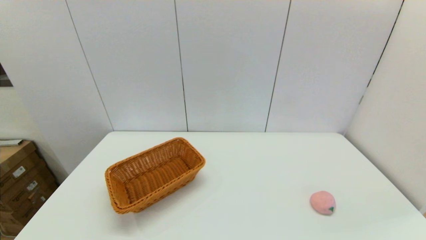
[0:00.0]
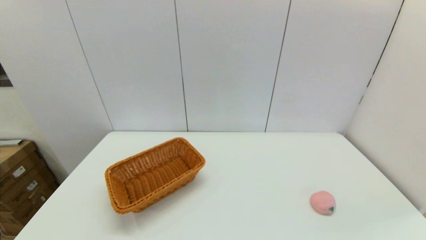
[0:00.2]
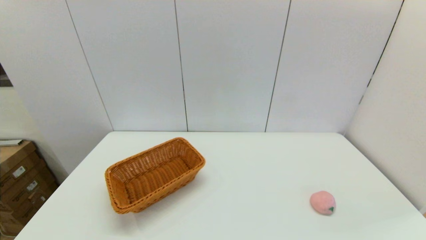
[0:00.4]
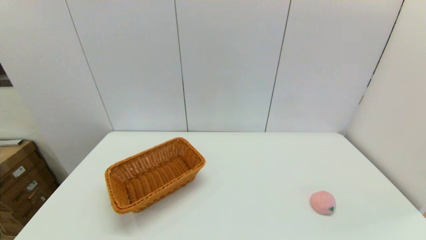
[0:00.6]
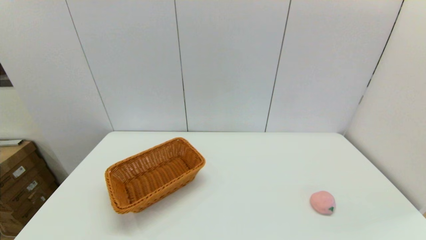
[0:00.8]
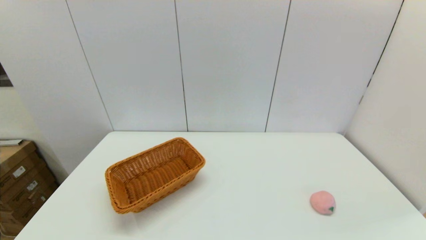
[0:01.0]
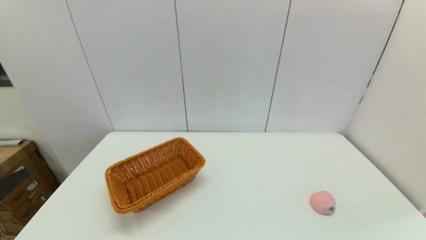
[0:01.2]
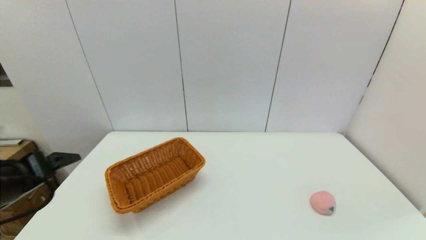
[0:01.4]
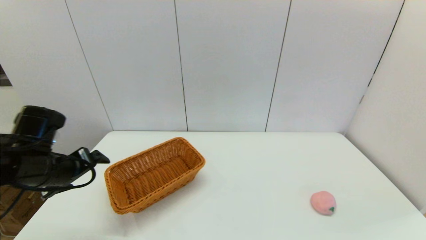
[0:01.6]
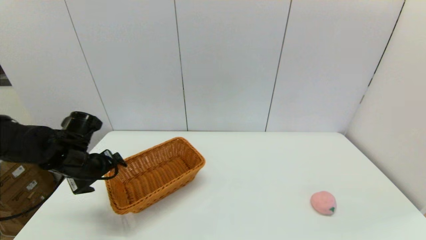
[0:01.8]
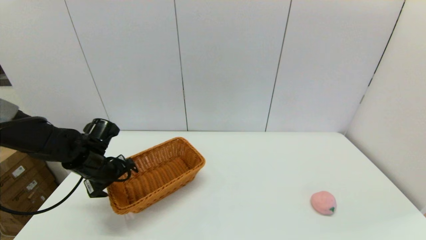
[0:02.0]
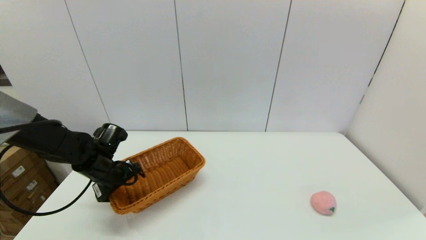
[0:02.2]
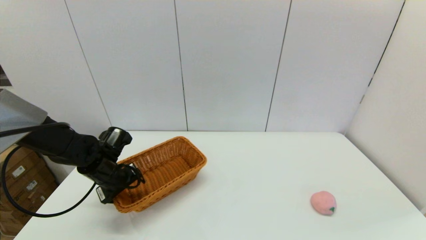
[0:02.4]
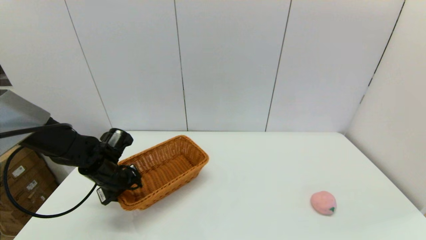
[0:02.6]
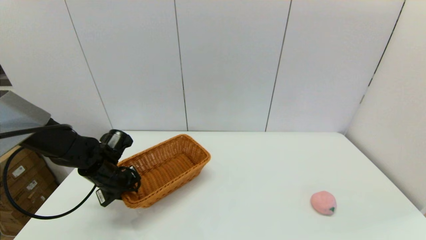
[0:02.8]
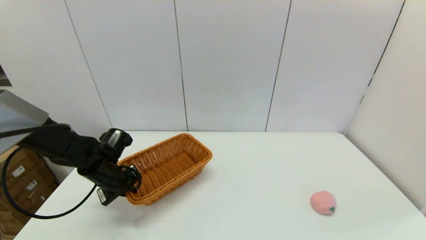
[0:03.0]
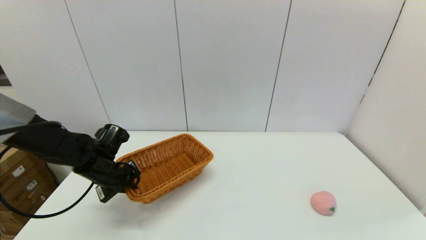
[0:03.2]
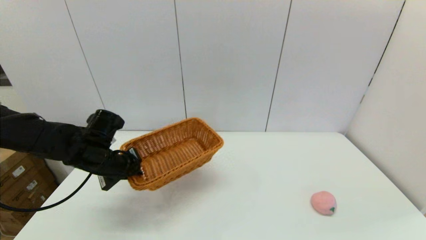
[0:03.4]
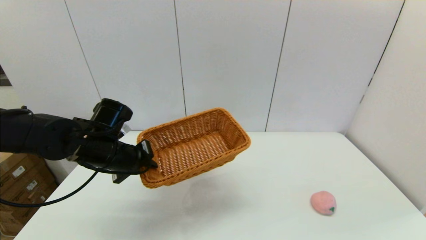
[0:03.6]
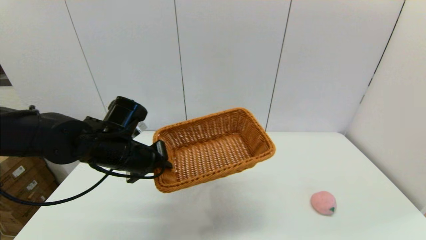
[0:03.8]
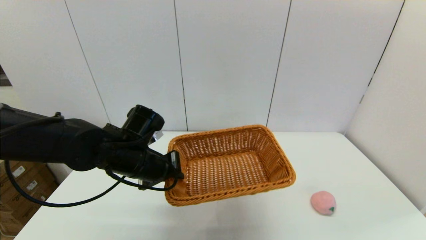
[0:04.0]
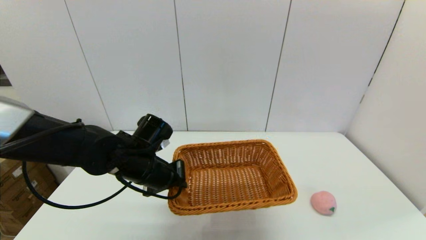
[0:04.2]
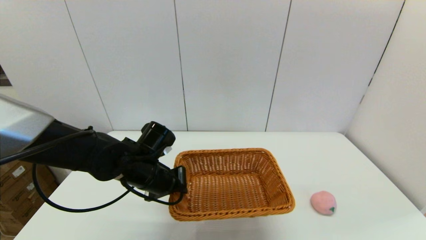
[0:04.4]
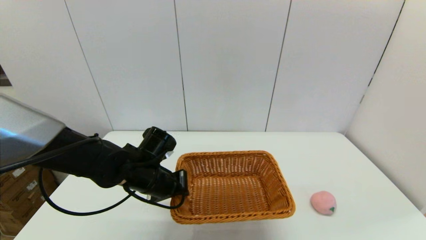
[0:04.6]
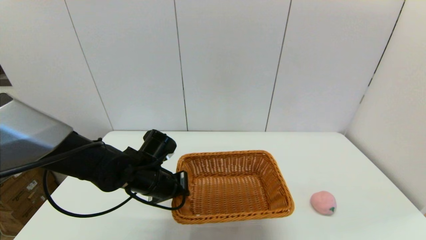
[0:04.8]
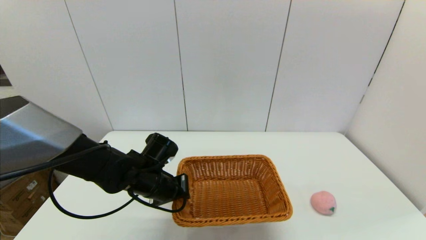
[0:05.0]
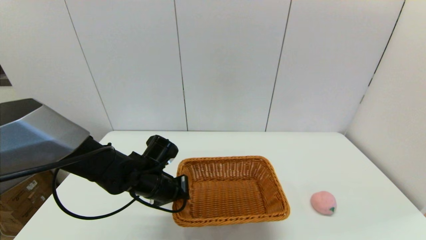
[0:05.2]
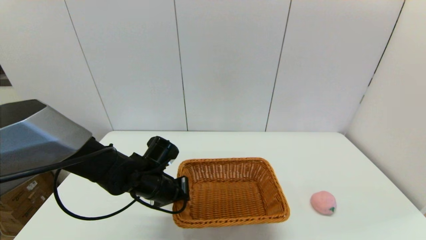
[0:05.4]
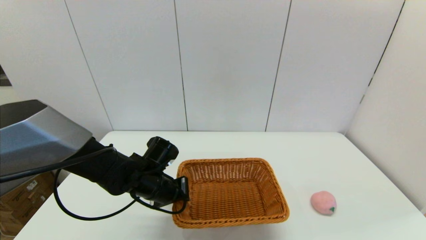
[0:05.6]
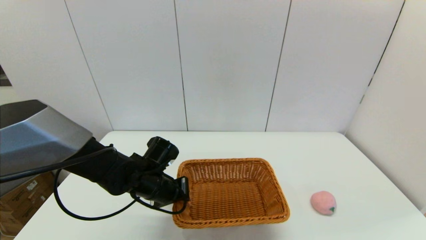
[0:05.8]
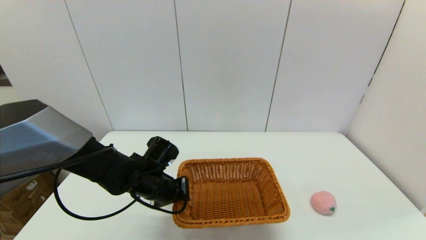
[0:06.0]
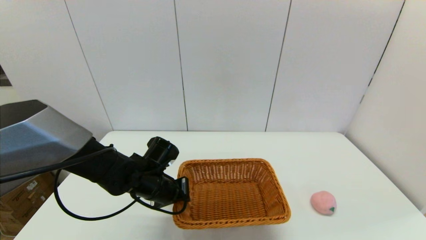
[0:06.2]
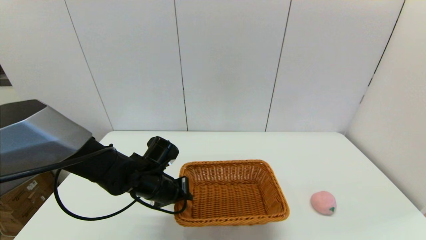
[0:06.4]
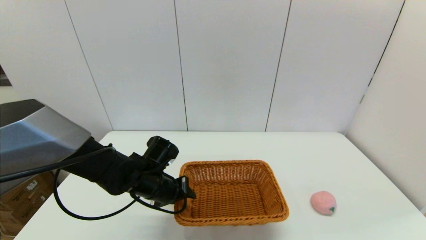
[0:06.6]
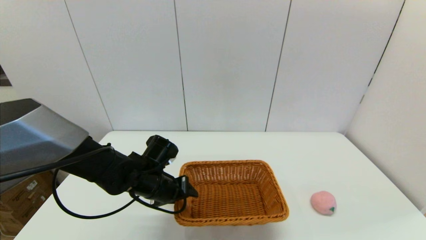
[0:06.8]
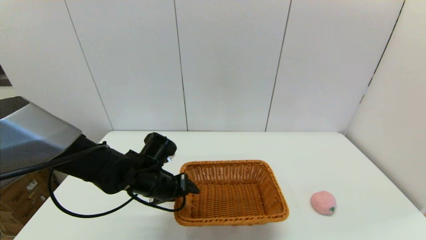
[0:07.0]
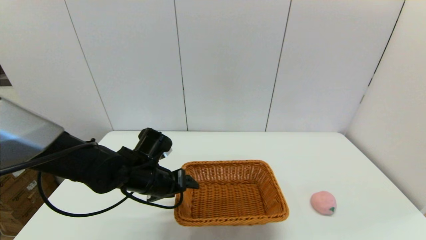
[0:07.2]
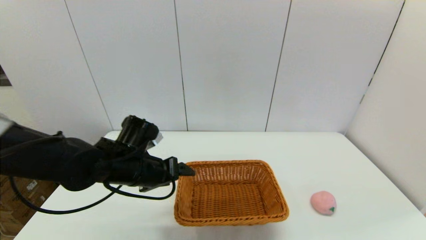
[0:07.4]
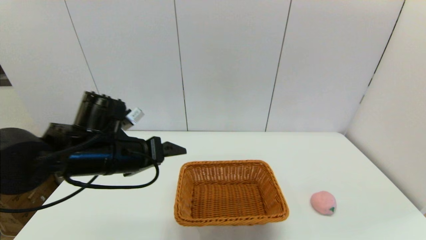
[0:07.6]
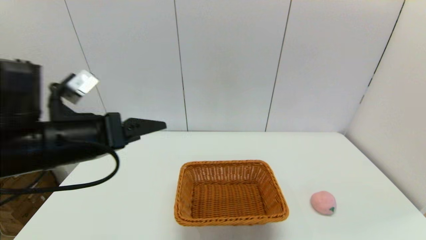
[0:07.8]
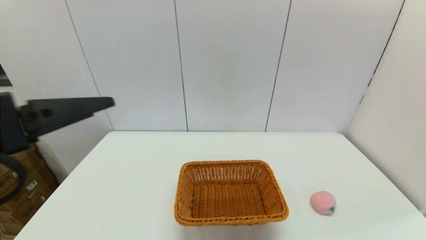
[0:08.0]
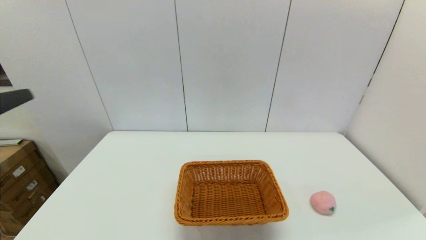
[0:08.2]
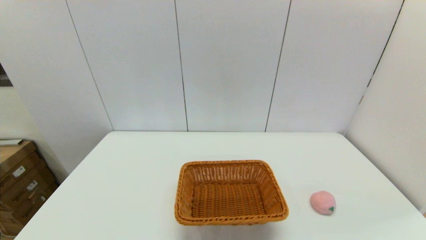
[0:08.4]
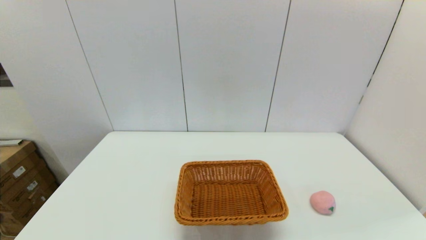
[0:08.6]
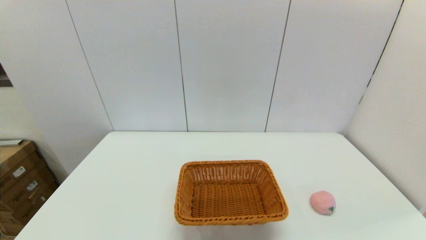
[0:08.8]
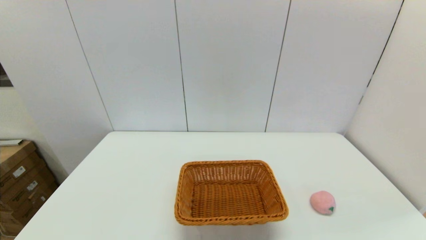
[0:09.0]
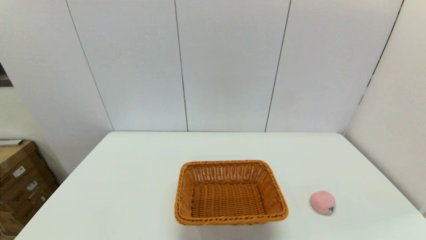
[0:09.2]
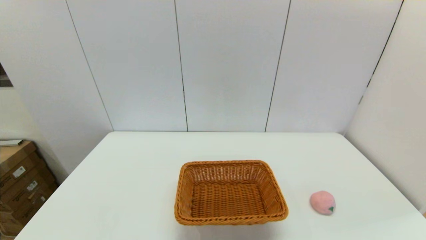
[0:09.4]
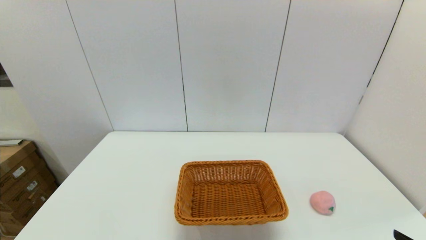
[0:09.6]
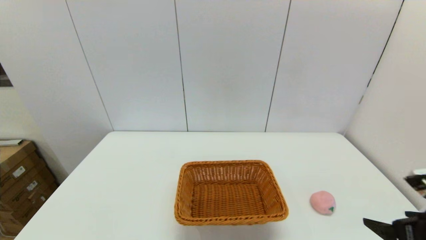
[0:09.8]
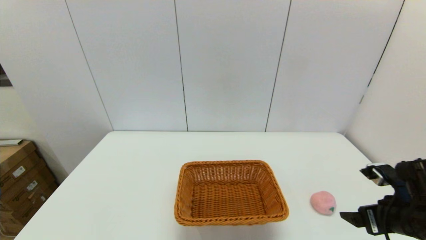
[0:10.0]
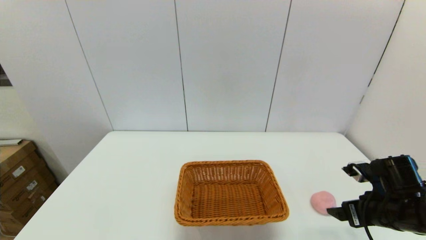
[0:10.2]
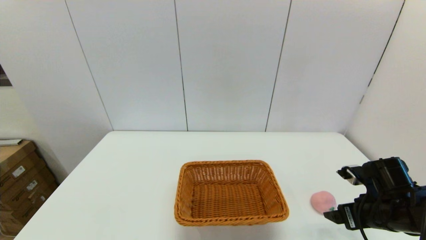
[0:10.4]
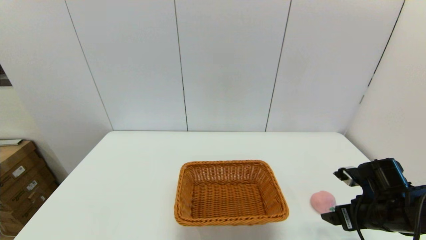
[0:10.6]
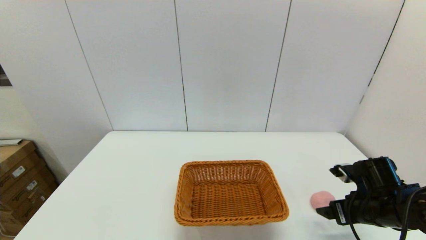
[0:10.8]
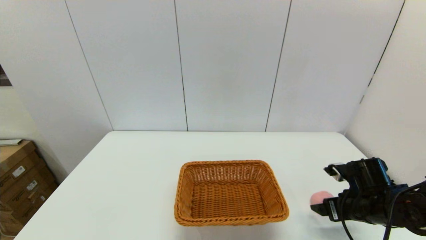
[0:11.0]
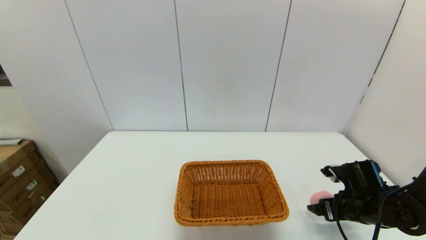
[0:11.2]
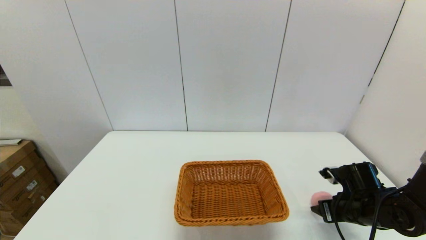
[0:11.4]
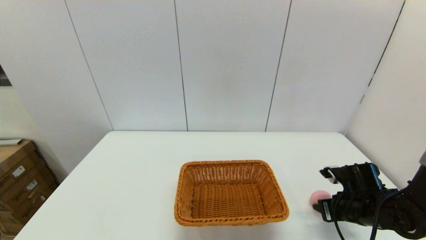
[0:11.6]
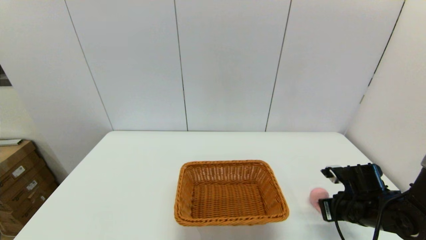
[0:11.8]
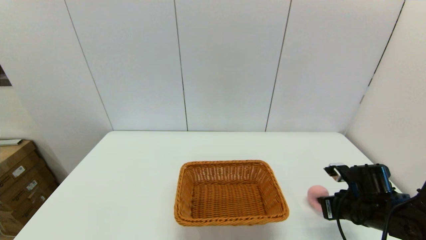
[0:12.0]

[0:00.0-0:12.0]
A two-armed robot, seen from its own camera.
Step, 0:00.0 to 0:02.8: Grasp the light basket with the left gripper.
Step, 0:03.2 to 0:06.6: Place the light basket on the middle of the table with the left gripper.
Step, 0:06.8 to 0:11.8: Grasp the peach with the right gripper.
0:00.0 to 0:01.6: The left gripper travels forward by about 25 cm.
0:01.6 to 0:03.0: The left gripper moves downward and forward, roughly 10 cm, and closes.
0:03.0 to 0:04.4: The left gripper is displaced to the right by roughly 10 cm.
0:04.4 to 0:06.0: There are only small adjustments of the grippers.
0:06.0 to 0:07.6: The left gripper moves upward, some 15 cm, and opens up.
0:07.6 to 0:09.0: The left gripper goes some 30 cm backward and to the left.
0:09.0 to 0:10.4: The right gripper travels forward by approximately 25 cm.
0:10.4 to 0:12.0: The right gripper closes.

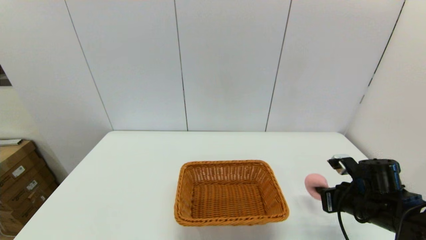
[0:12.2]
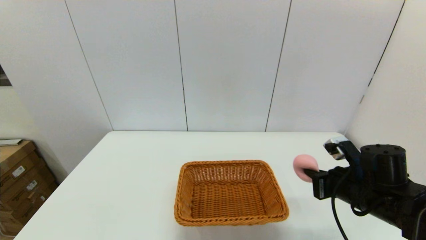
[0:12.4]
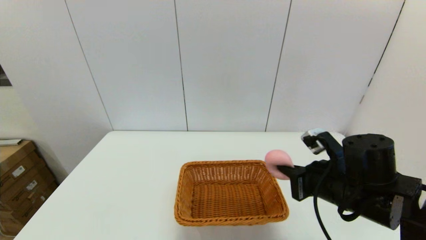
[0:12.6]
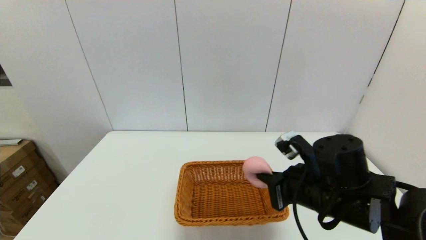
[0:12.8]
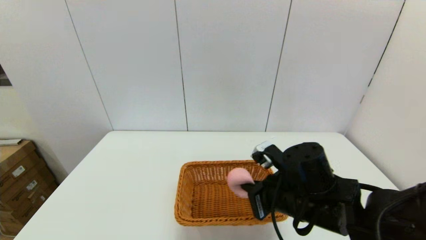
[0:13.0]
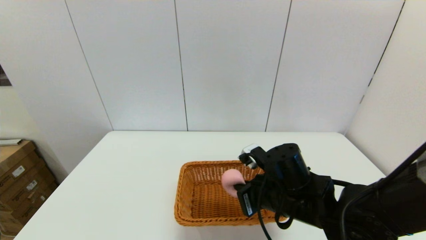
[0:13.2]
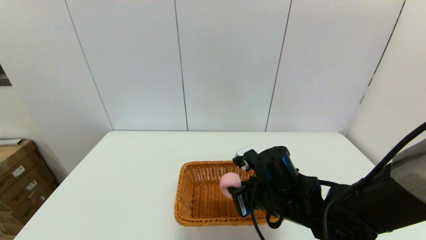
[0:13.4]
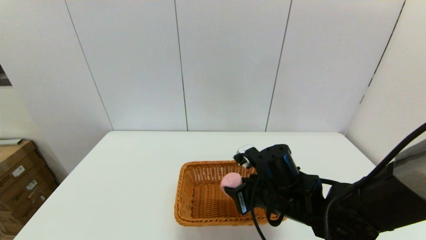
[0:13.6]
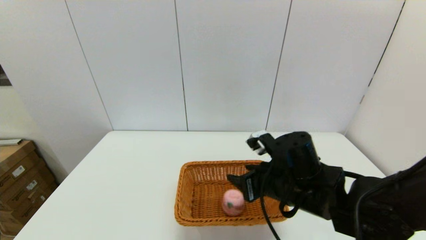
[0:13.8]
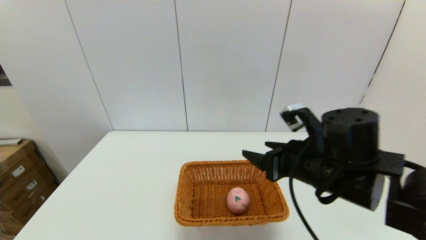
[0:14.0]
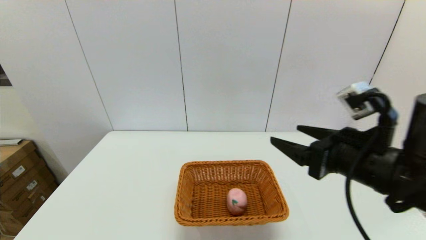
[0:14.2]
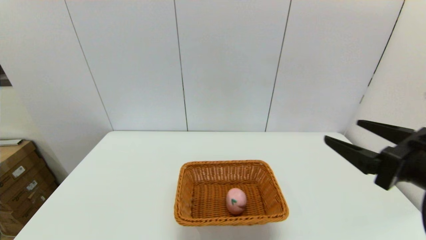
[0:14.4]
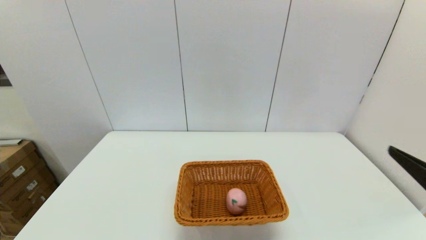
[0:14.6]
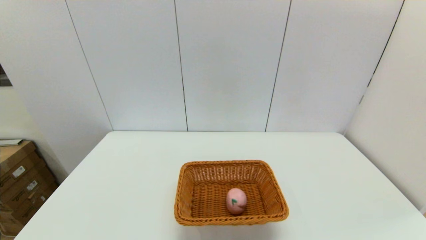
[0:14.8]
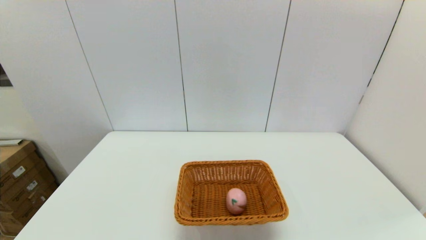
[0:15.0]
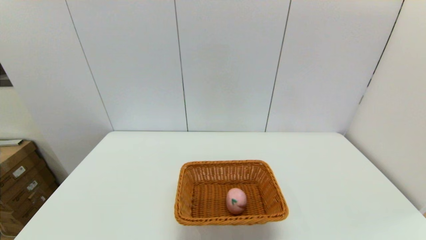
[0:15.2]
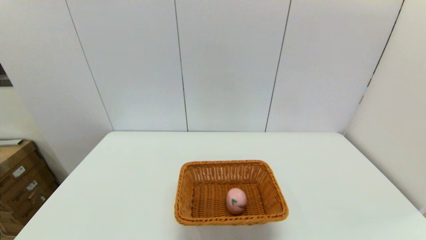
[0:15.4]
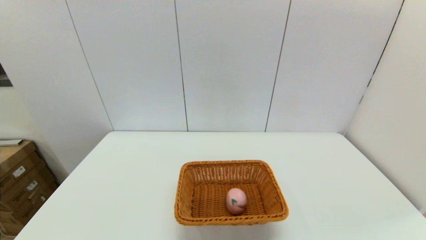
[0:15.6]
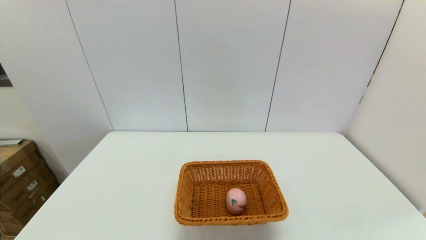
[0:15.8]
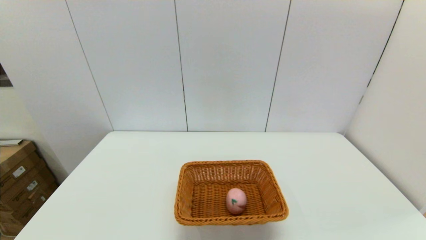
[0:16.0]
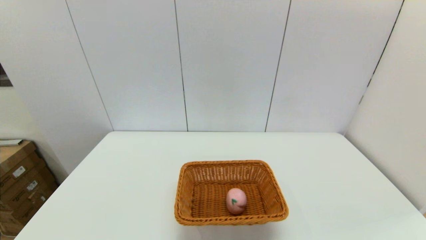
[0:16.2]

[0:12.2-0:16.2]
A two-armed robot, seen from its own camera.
Step, 0:12.2 to 0:13.8: Place the peach into the light basket with the right gripper.
0:12.2 to 0:13.6: The right gripper goes roughly 20 cm to the left, and opens its fingers.
0:13.6 to 0:14.8: The right gripper heads to the right, backward and upward, covering roughly 30 cm, and opens its fingers.
